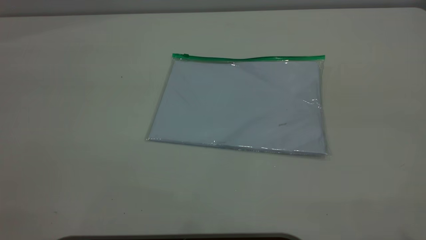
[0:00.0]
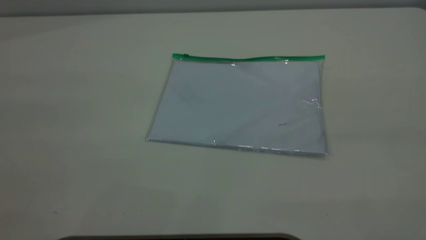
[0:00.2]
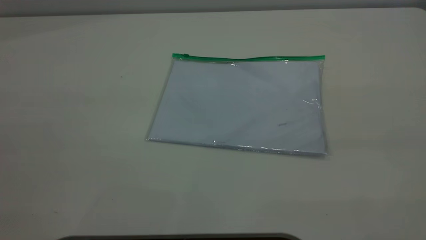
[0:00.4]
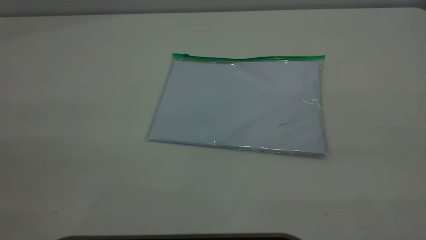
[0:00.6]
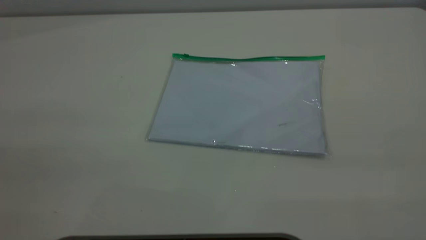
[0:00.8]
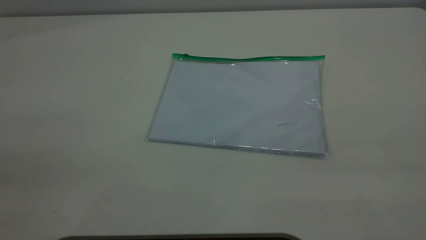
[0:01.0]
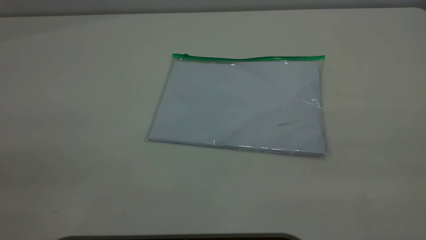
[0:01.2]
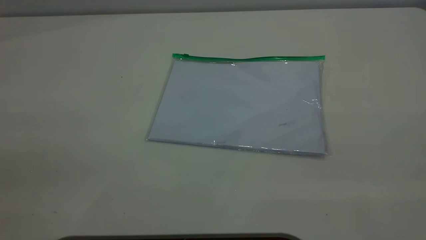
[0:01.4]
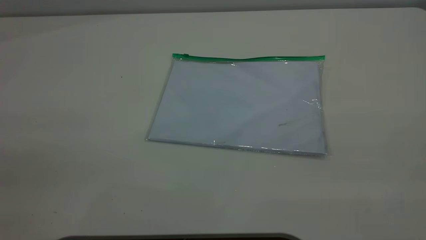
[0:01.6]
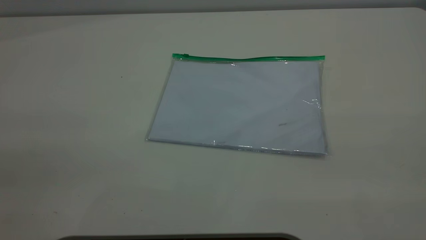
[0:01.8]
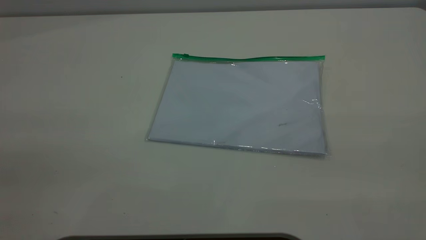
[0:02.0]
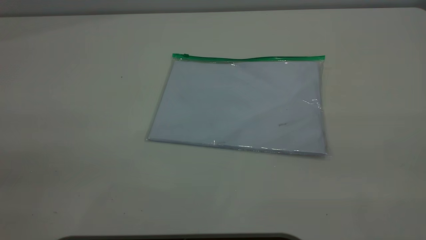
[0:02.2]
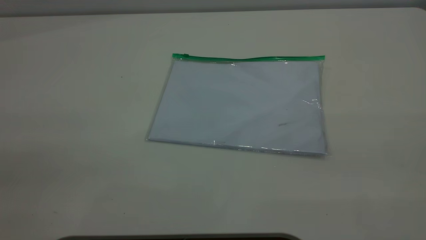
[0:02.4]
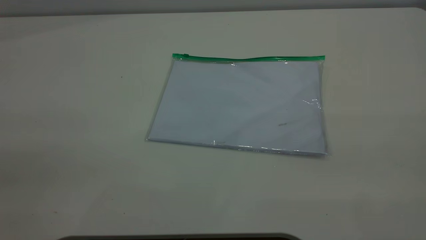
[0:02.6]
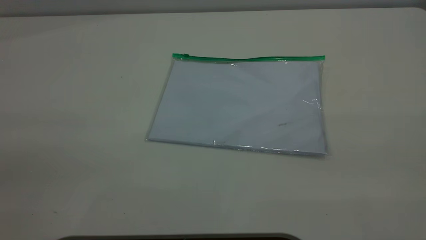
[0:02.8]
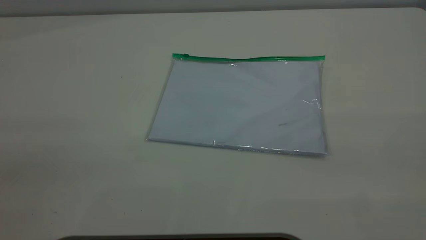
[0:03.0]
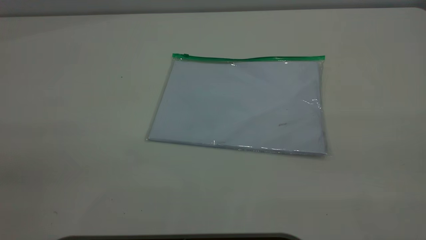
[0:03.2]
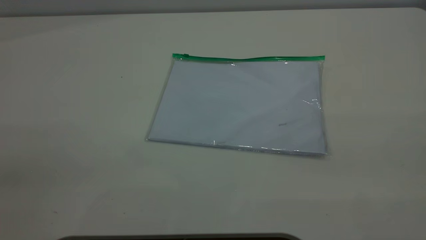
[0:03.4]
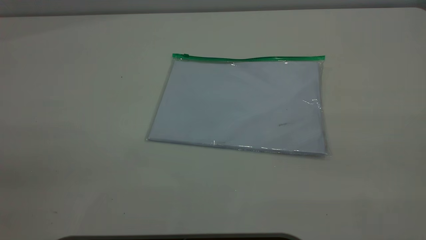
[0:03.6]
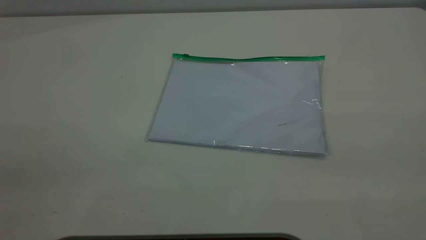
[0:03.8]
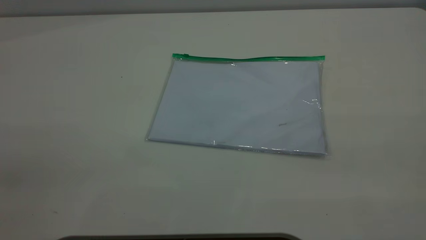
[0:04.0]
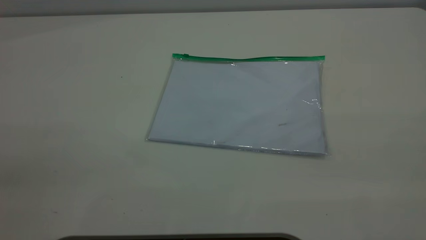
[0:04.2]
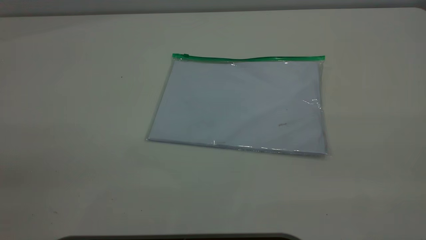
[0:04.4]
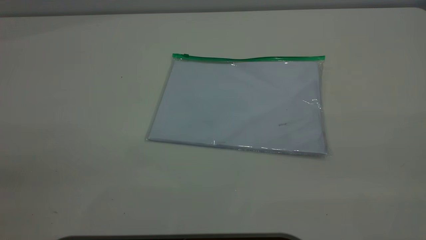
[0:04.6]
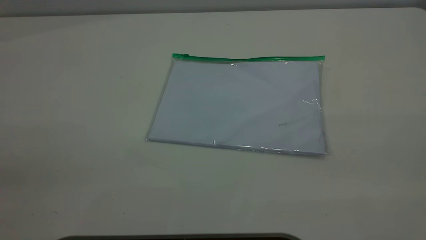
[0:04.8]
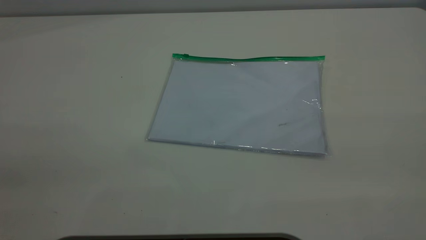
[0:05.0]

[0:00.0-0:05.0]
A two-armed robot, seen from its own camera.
0:03.4 to 0:05.0: Both grippers stay put.
